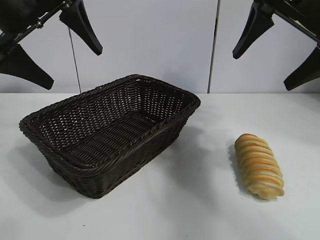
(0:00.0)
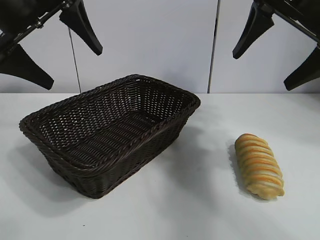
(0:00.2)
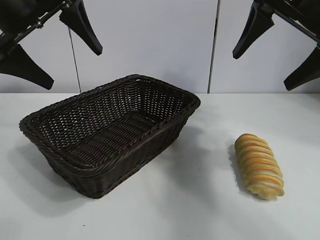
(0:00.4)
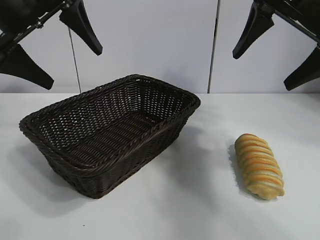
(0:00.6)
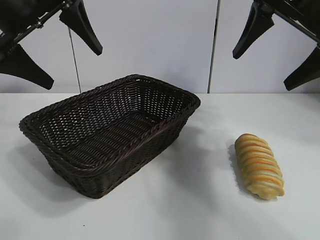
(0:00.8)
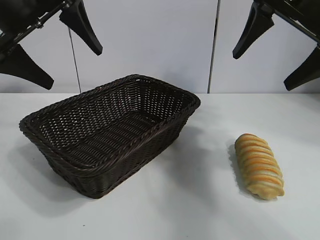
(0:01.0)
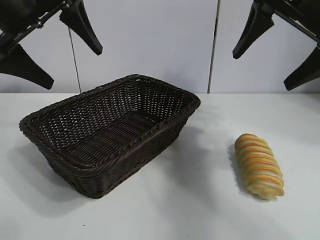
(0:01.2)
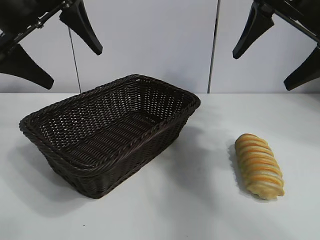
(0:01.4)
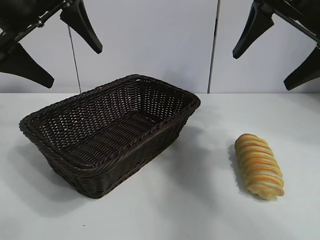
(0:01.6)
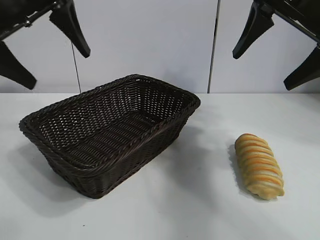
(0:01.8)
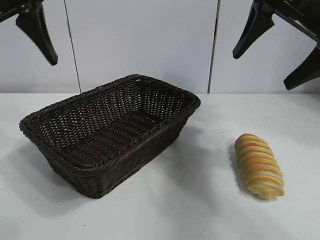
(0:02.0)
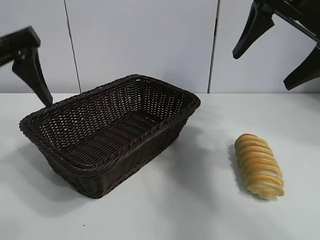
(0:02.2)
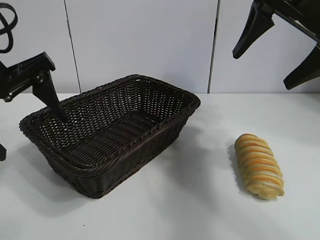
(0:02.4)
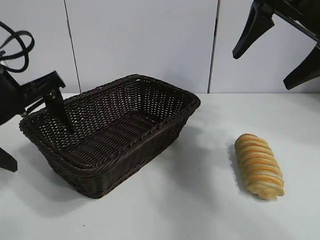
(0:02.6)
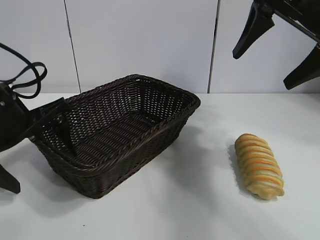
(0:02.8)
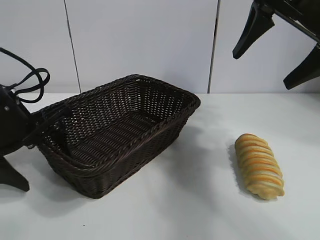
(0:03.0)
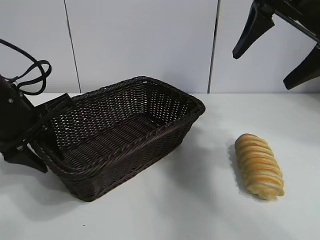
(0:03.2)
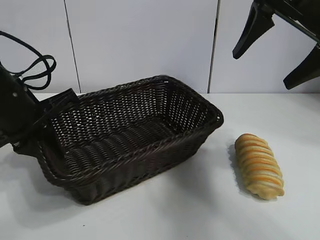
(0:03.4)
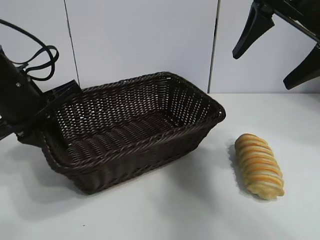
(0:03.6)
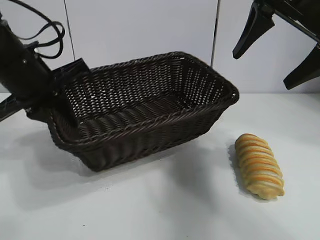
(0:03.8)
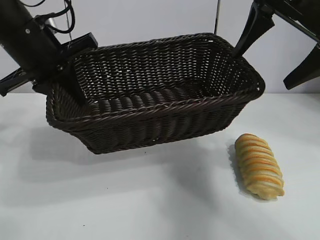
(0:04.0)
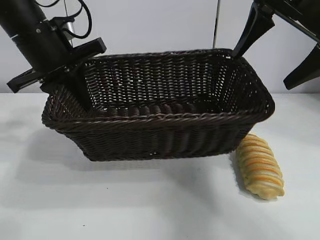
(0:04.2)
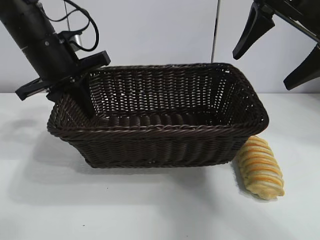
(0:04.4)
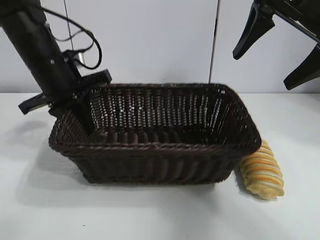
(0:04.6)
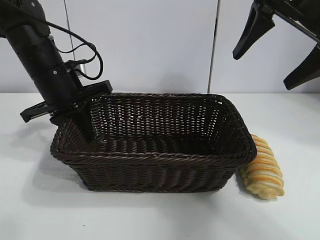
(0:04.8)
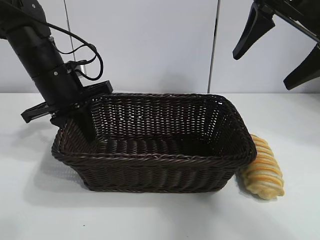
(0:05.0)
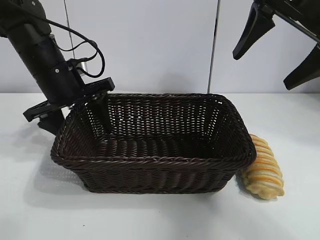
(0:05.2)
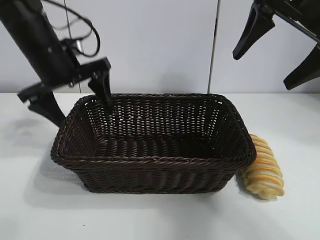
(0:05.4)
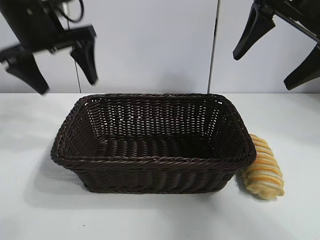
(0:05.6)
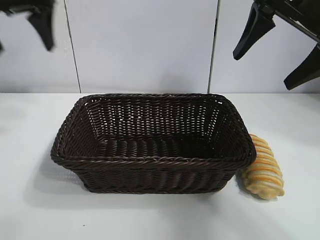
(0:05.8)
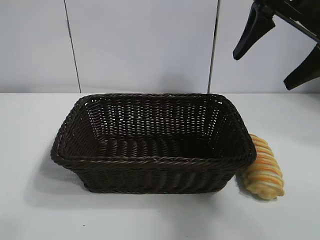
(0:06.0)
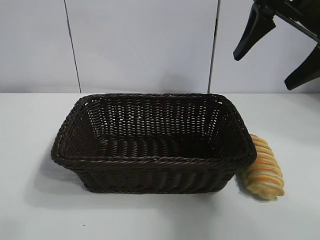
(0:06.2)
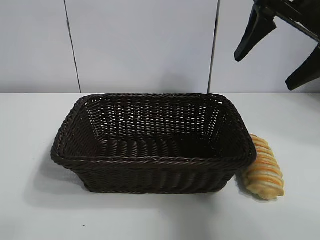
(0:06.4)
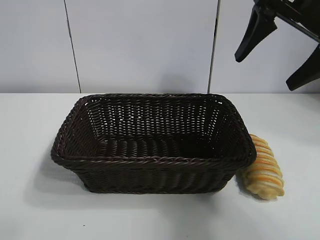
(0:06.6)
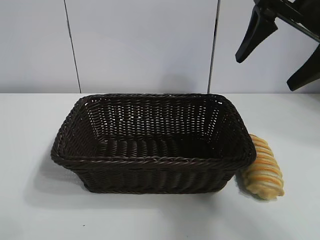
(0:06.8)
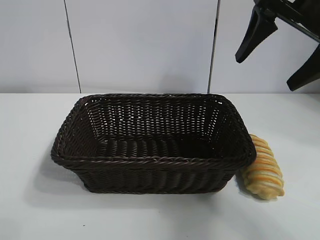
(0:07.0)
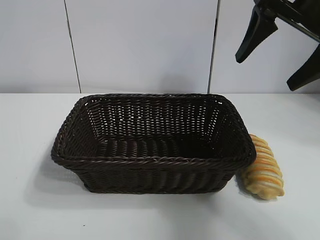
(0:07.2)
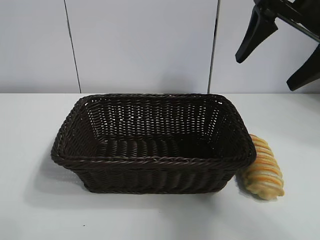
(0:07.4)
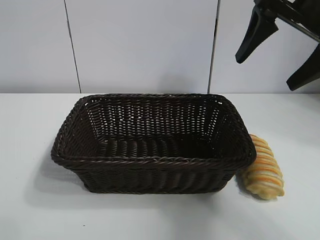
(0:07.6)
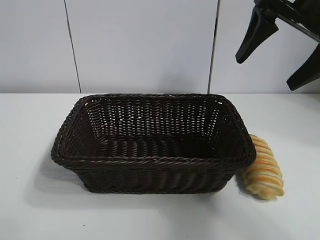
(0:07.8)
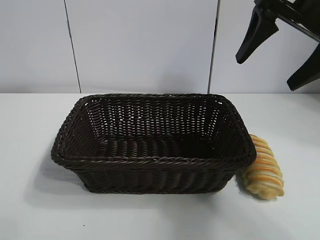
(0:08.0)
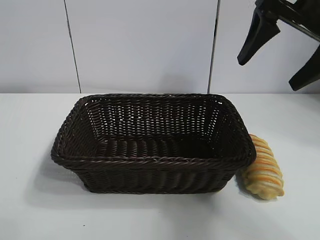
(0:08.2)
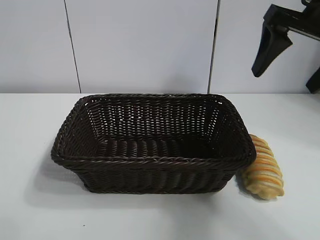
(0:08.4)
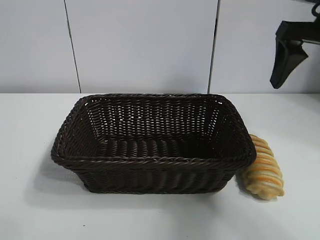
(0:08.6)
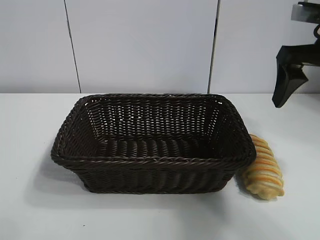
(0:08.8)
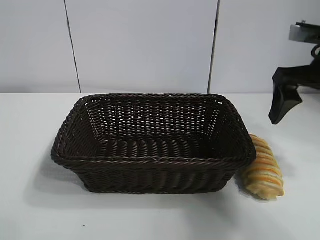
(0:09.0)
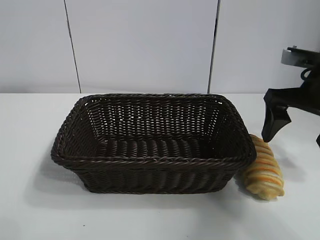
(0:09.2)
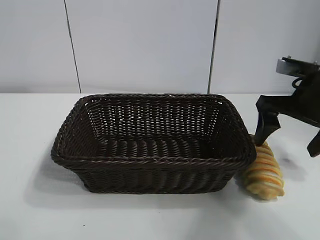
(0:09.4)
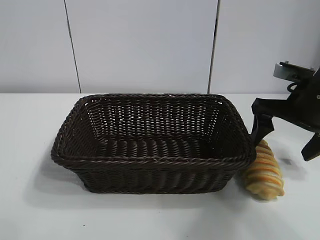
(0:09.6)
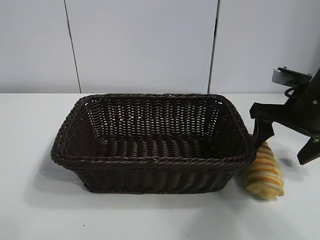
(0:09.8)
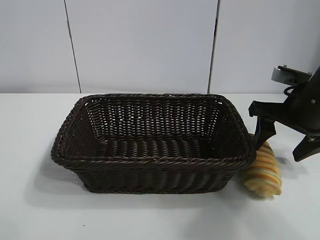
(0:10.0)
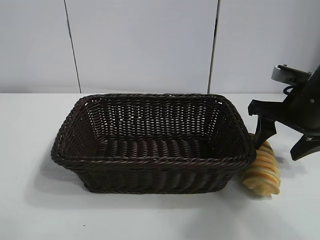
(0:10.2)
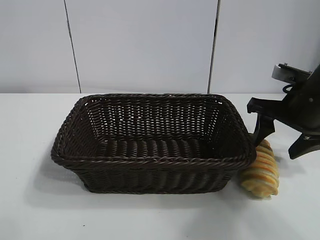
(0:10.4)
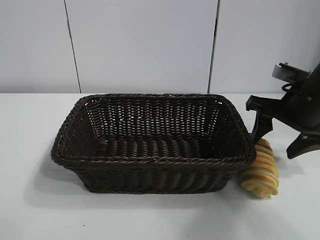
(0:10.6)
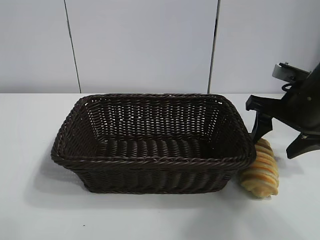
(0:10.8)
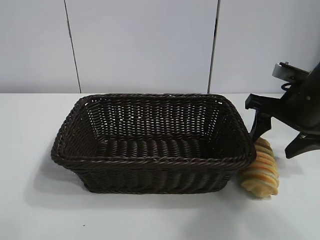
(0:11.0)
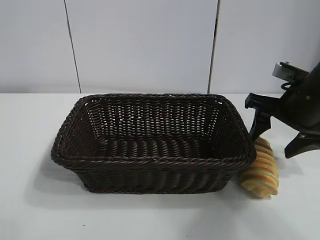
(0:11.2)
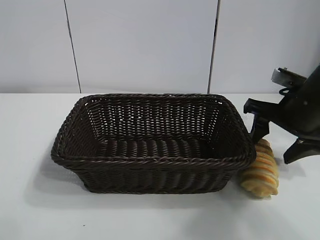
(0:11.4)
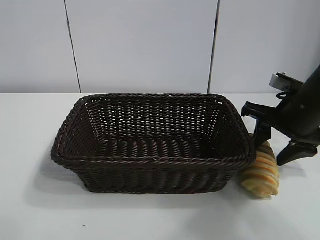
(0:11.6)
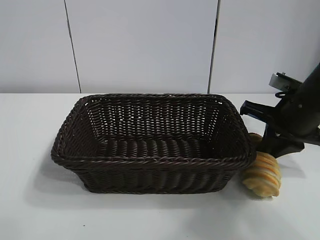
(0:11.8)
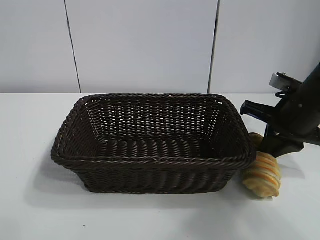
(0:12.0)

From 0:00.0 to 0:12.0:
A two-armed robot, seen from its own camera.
Task of the whole recording: pick up the long bread and put it into the basket.
Step, from 0:01.6 to 0:03.2: Grasp the basket with the left gripper.
Step, from 0:03.4 to 0:05.2: Place the basket in the center of the table with the left gripper.
Step, from 0:05.4 to 0:11.8: Grasp the long bread with right gripper.

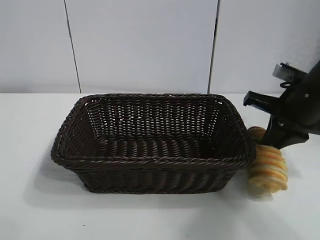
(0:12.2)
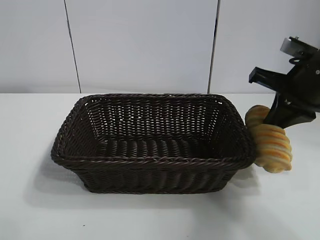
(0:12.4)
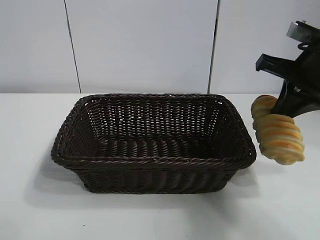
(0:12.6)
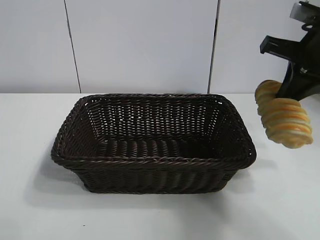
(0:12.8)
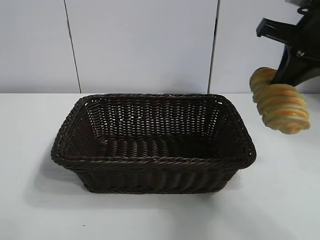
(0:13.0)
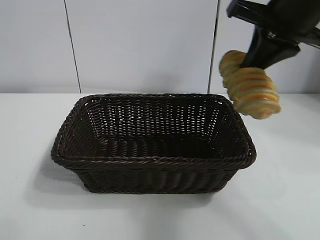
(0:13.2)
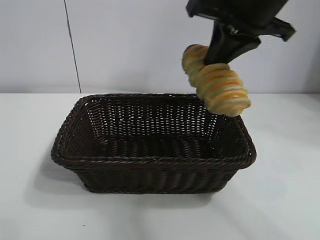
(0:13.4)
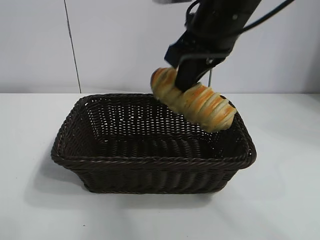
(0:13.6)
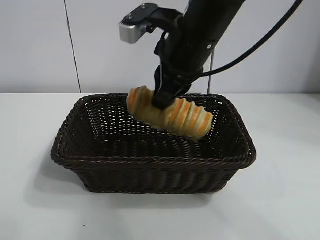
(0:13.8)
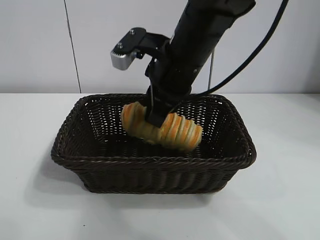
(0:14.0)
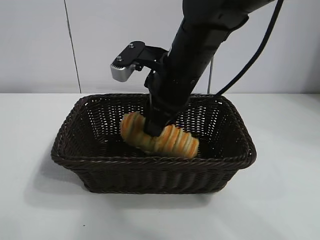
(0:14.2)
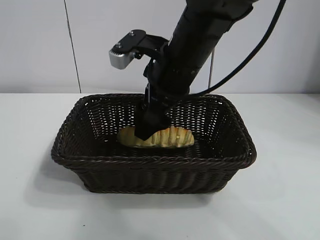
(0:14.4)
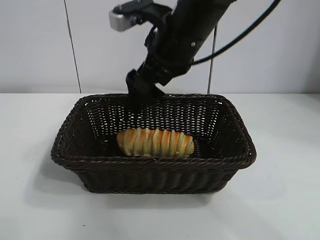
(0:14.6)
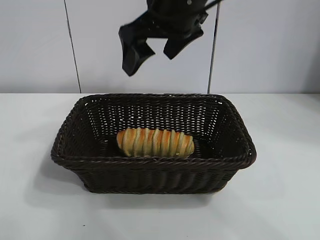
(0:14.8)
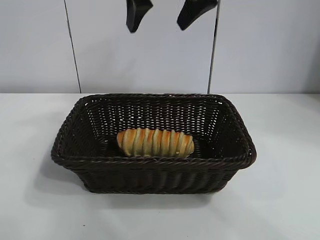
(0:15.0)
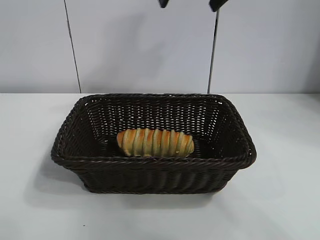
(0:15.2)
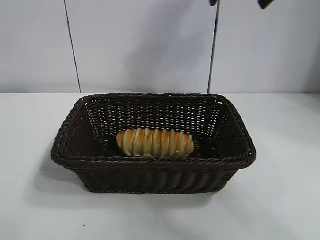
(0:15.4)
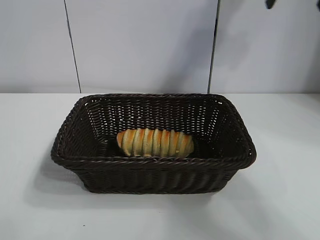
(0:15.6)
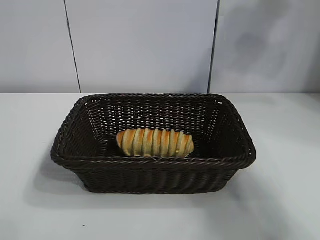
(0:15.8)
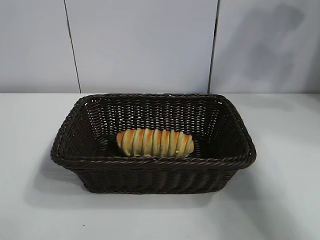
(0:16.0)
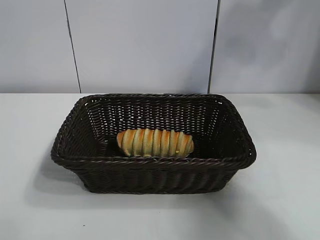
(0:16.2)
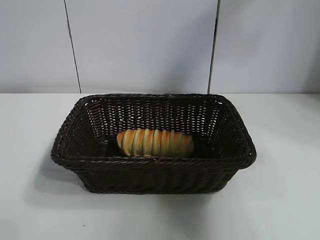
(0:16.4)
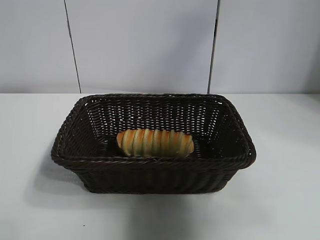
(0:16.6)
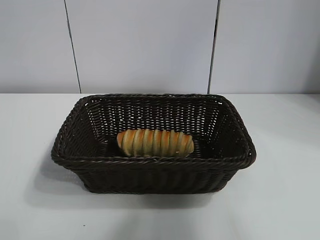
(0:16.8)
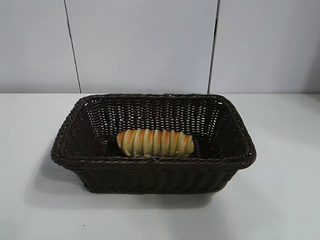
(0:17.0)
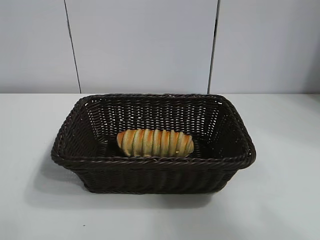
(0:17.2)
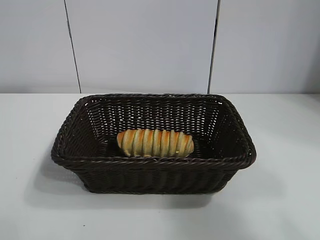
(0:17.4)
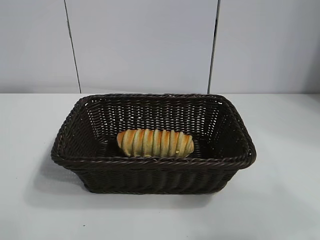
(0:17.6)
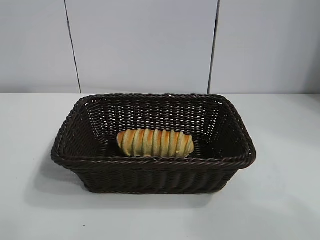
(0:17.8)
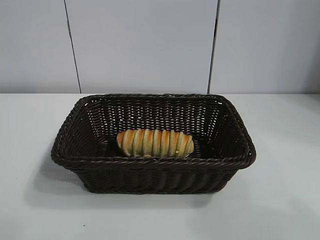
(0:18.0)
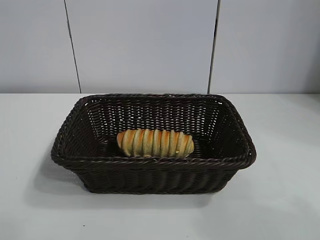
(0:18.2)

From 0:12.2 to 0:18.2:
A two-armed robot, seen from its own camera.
Task of the whole recording: pick up the long bread and put it into the basket.
Step, from 0:12.2 to 0:14.6: Place the long bread in the basket with right gripper.

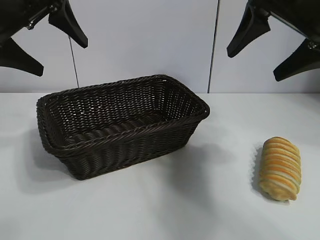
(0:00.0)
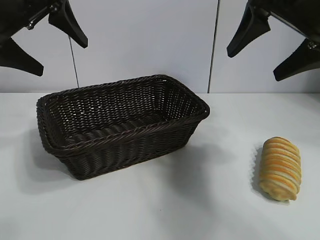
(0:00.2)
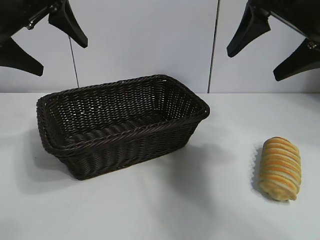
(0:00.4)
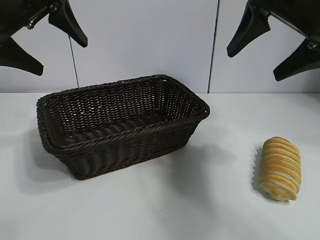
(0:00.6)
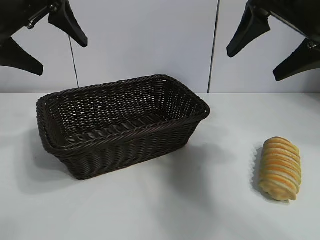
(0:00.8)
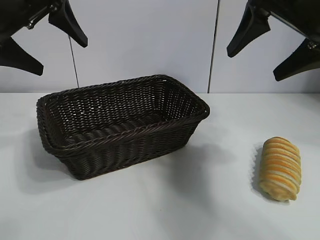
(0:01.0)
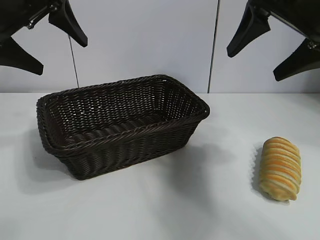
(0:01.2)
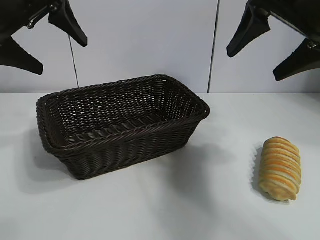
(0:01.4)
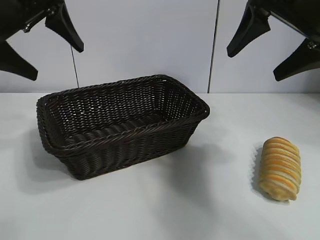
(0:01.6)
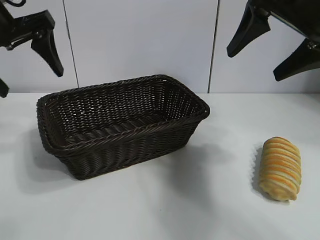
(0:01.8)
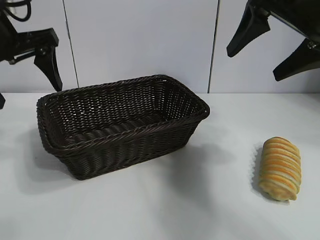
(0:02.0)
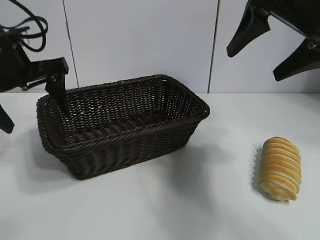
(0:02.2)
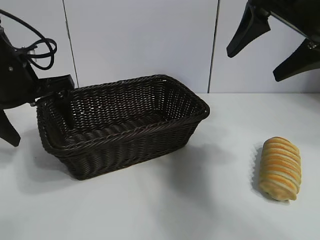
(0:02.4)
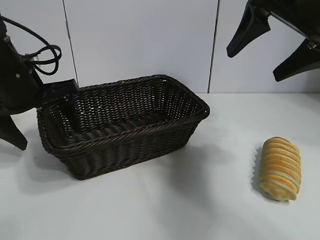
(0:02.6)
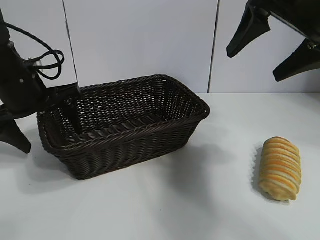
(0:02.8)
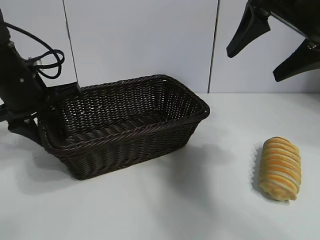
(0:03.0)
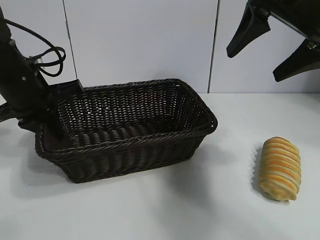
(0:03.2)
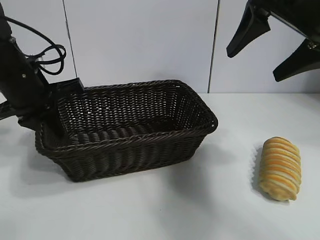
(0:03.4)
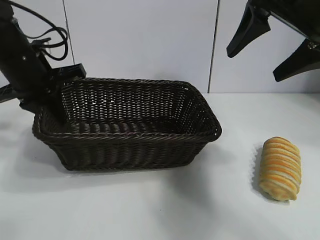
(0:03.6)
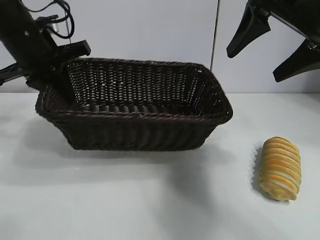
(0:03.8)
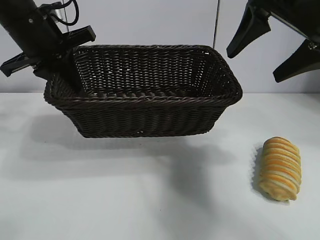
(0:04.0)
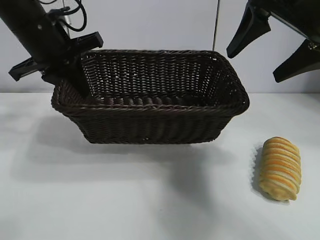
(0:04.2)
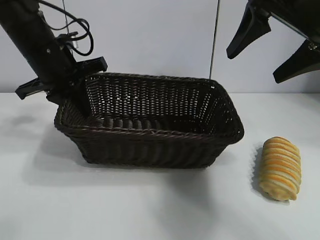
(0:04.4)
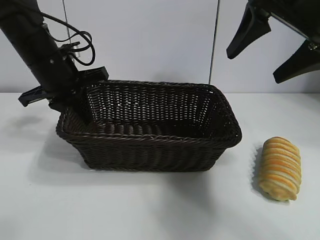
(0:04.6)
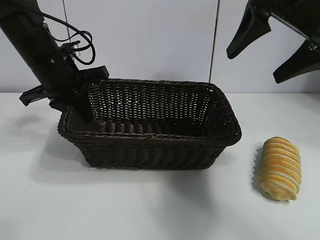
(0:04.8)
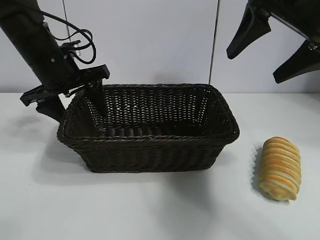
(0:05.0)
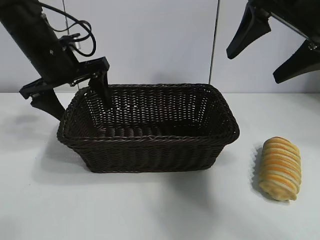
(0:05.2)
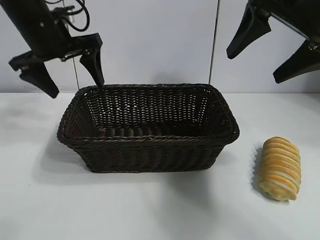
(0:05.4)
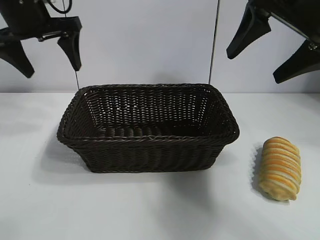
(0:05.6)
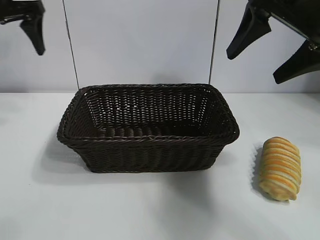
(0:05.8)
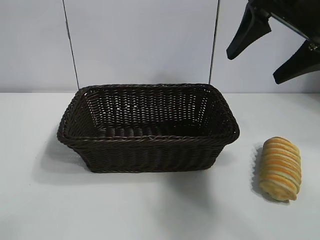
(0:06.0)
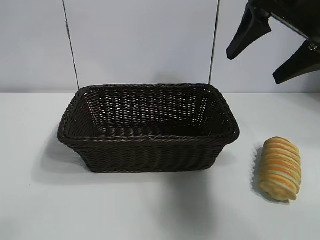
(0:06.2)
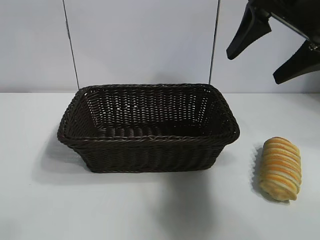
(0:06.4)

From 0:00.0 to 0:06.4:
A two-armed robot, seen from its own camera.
Task of the whole recording: pick up the long bread and put it into the basket.
Step, from 0:01.6 to 0:03.0: Grasp the basket with the left gripper.
Step, from 0:03.2 to 0:05.0: Place the basket in the center of the table with the left gripper.
